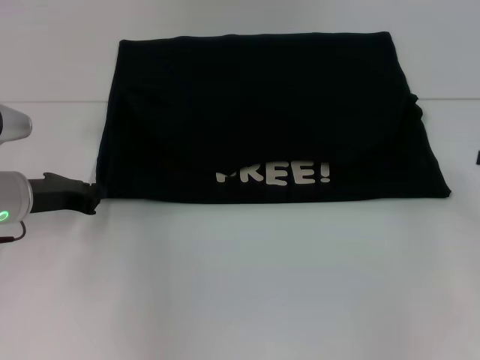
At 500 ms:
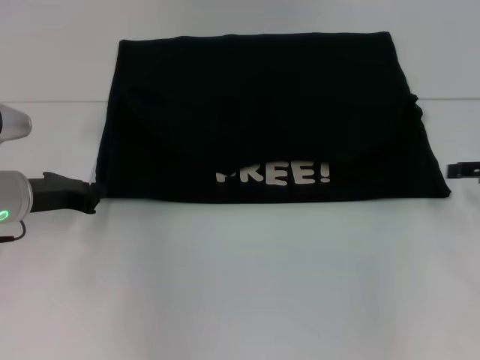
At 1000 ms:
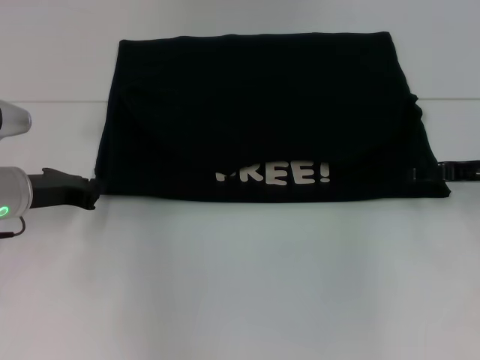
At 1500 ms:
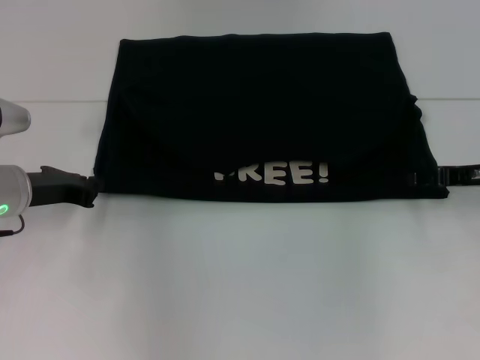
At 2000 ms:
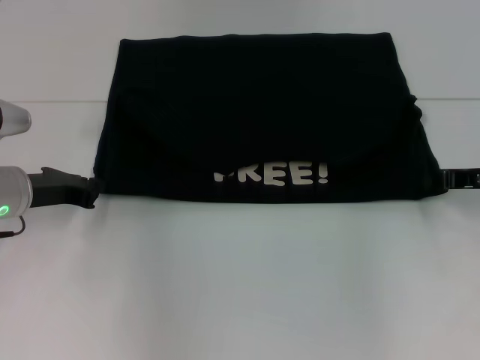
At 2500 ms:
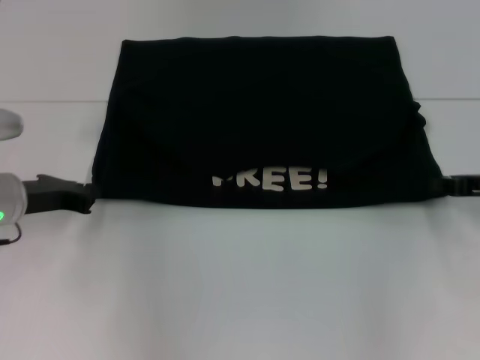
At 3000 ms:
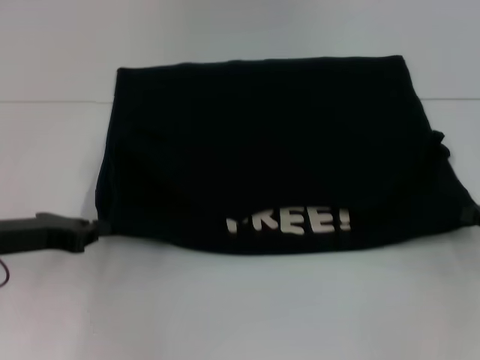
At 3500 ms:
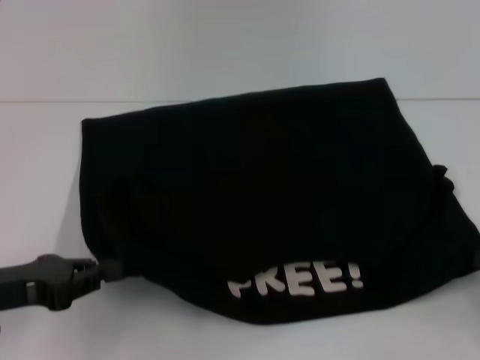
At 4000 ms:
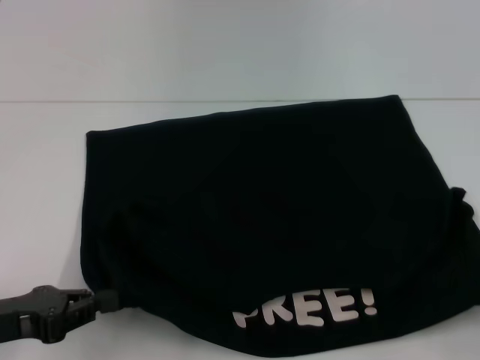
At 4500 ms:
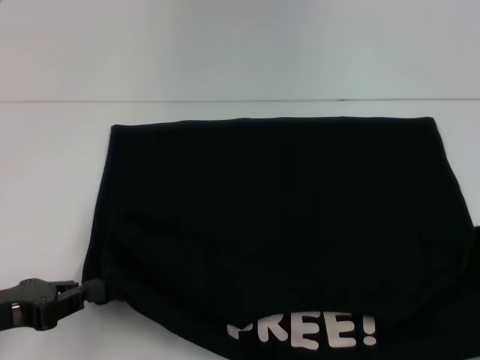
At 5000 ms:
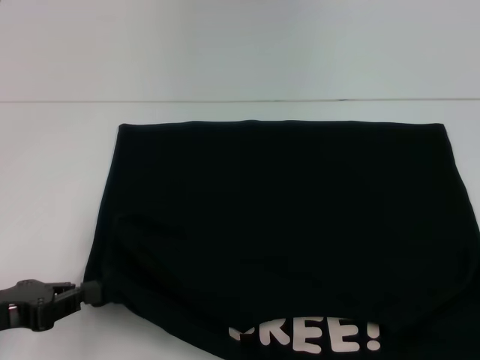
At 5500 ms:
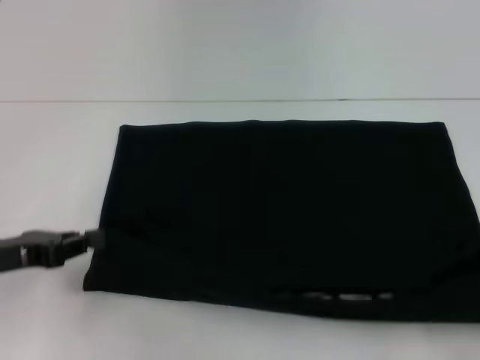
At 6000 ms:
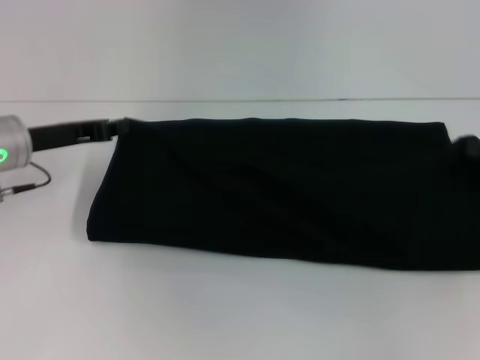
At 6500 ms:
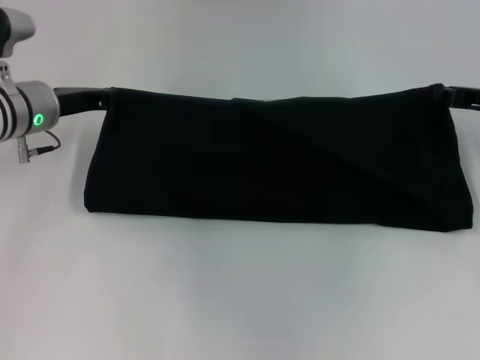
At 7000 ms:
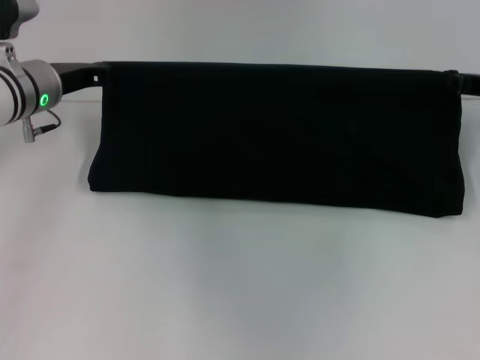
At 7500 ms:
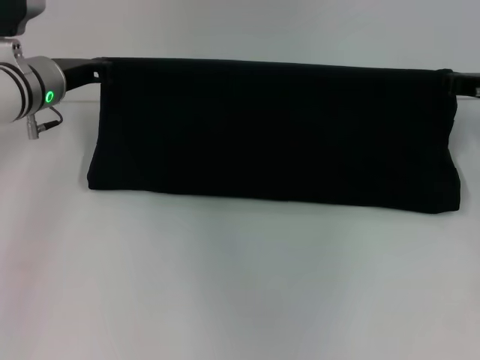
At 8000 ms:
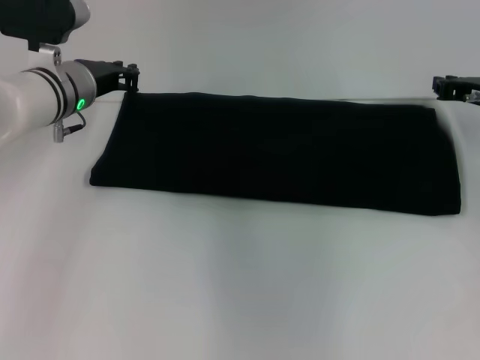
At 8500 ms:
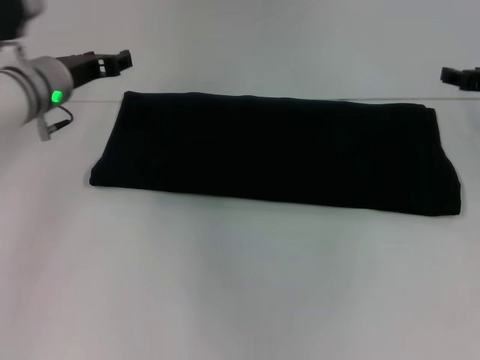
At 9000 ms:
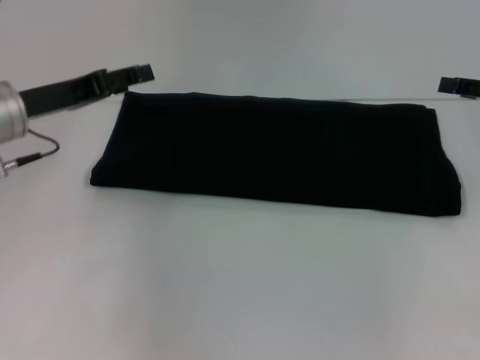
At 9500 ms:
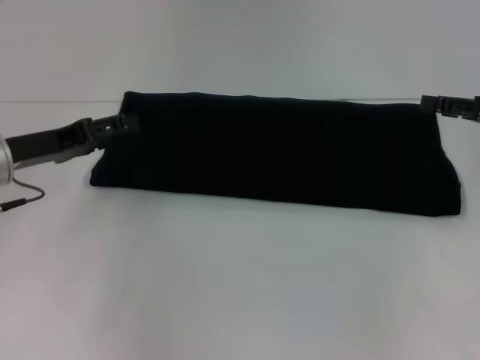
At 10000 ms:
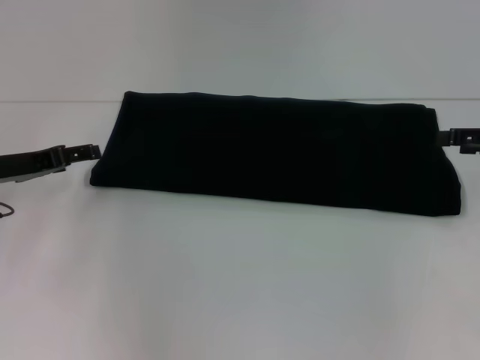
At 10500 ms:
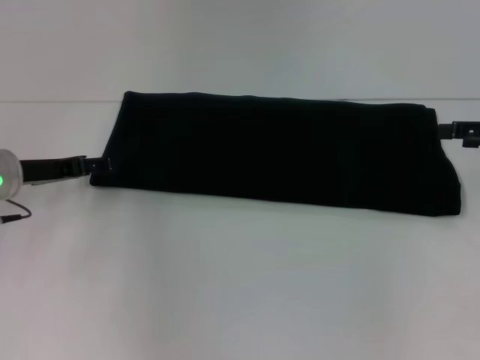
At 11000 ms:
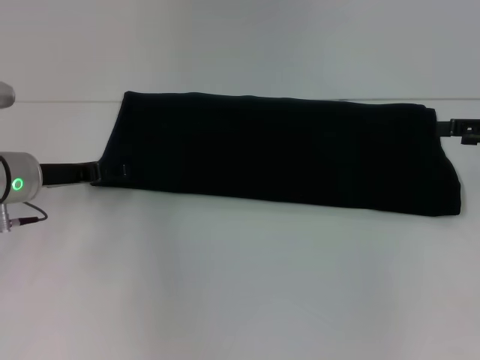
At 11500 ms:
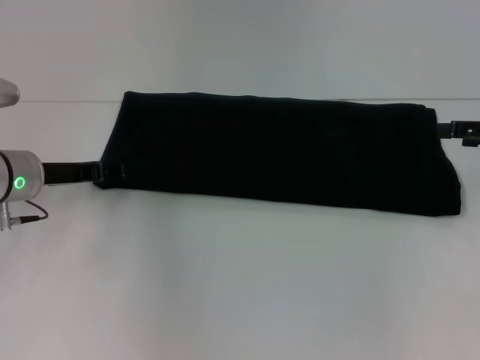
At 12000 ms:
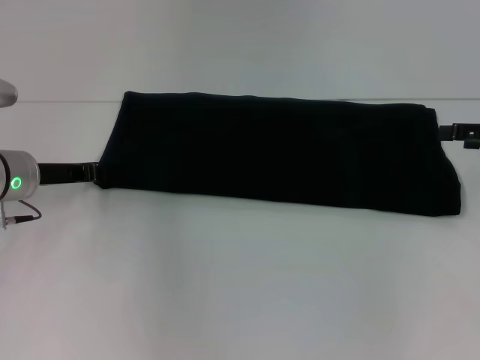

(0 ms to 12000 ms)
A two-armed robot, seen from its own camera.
Step, 0 ms - 4000 ms: Pull the clothes with your left hand.
Step, 0 ms - 4000 ms: Pull the clothes with your right hand.
Step, 4500 ms - 7500 ms: Fold the clothes with your right hand.
0 ms - 2000 ms: The right gripper heads to the left, covering about 10 cm, and closes up.
2000 ms - 4000 ms: The left gripper shifts roughly 15 cm backward; the right gripper moves backward and to the right, some 20 cm.
4000 ms - 6000 ms: Both grippers move forward, approximately 15 cm.
6000 ms - 8000 ms: The left gripper heads to the right and forward, covering approximately 10 cm; the right gripper goes about 15 cm forward and to the left.
8000 ms - 10000 ms: The right gripper travels backward and to the right by roughly 10 cm, and opens its fingers. The left gripper shifts some 15 cm to the left and backward, and opens.
10000 ms - 12000 ms: The left gripper closes up.

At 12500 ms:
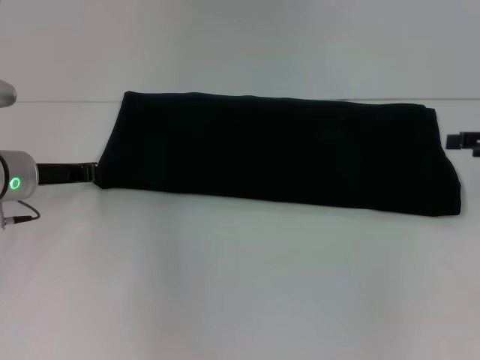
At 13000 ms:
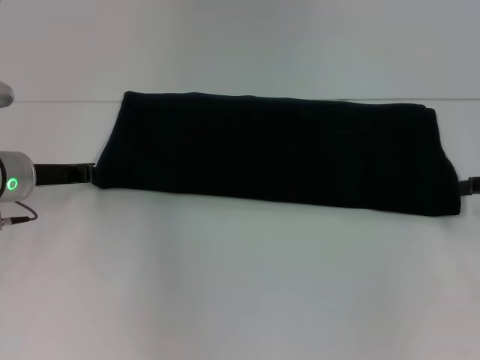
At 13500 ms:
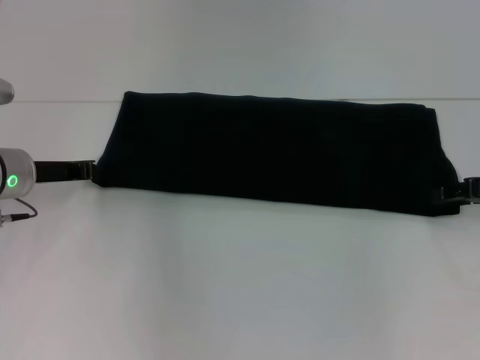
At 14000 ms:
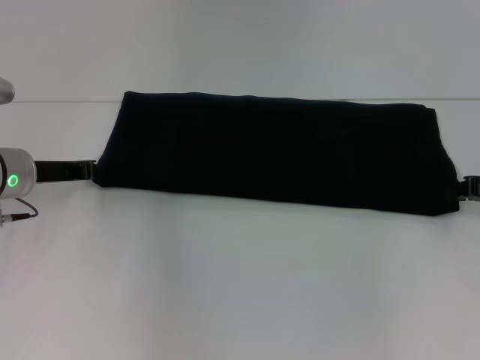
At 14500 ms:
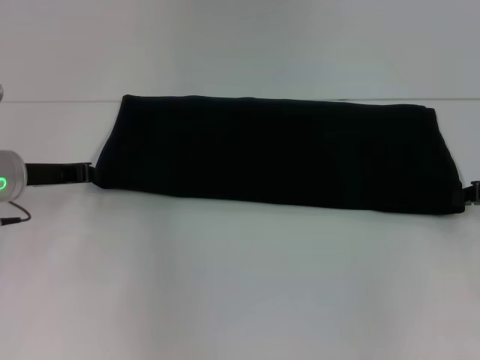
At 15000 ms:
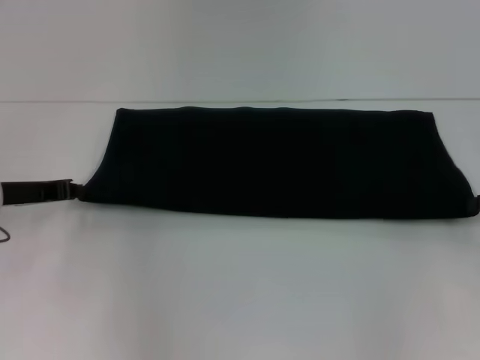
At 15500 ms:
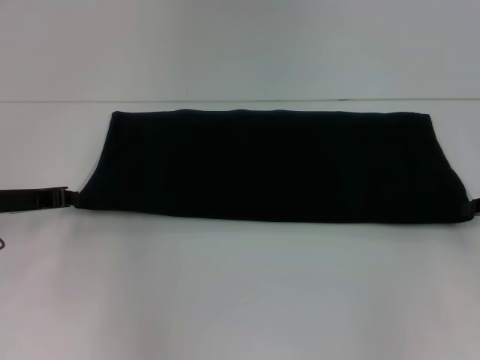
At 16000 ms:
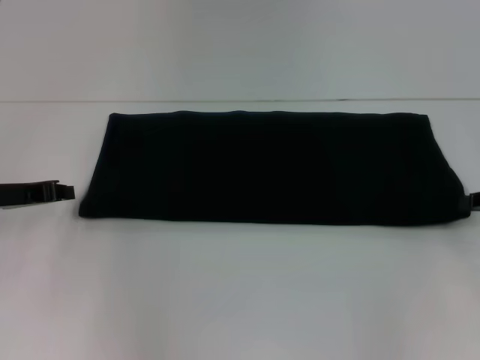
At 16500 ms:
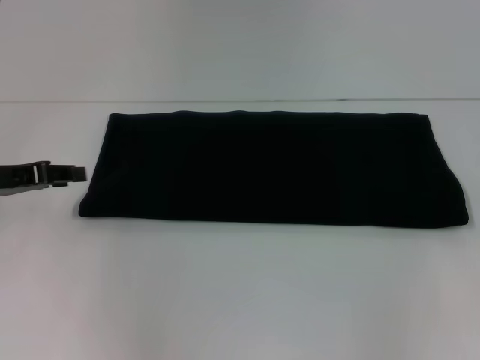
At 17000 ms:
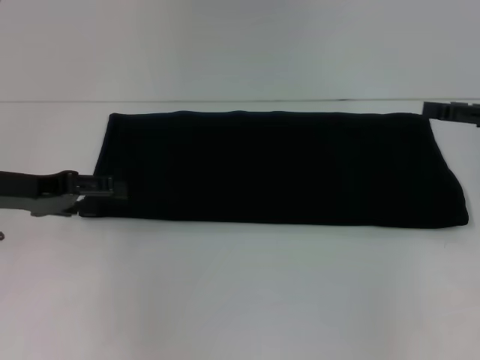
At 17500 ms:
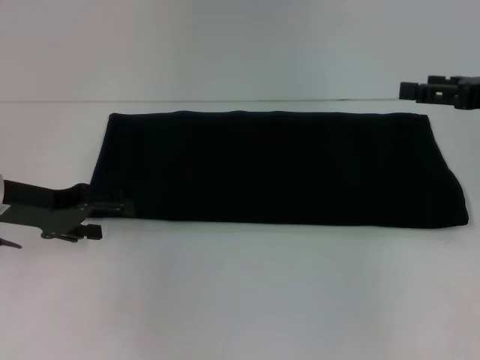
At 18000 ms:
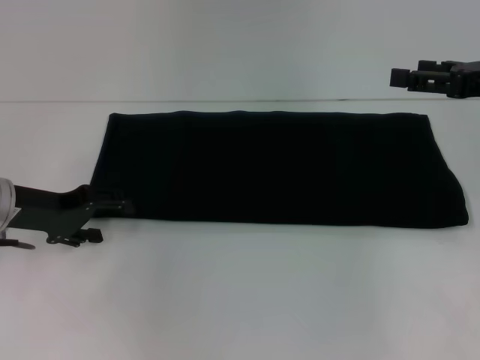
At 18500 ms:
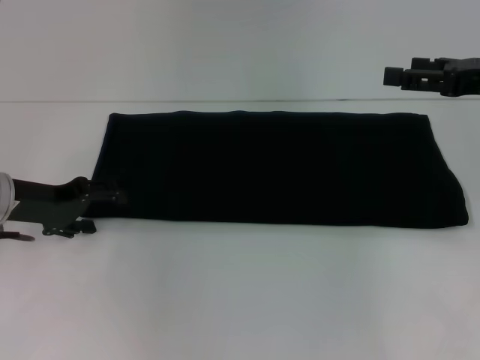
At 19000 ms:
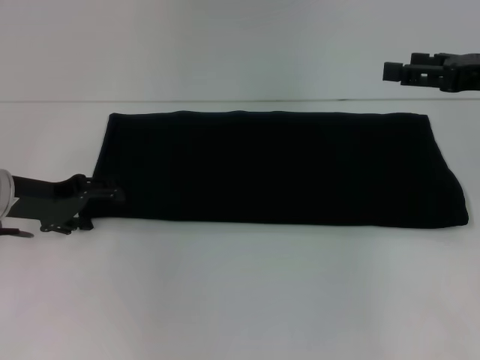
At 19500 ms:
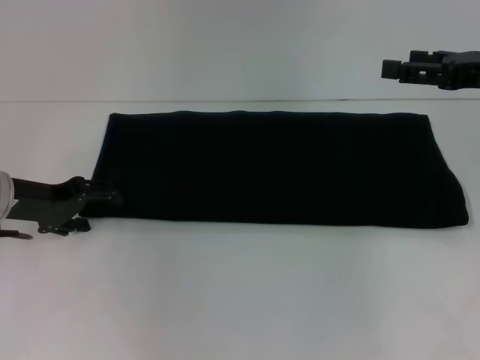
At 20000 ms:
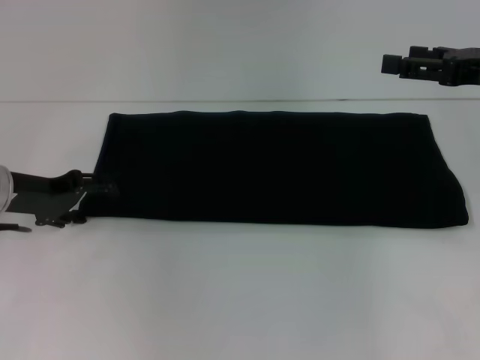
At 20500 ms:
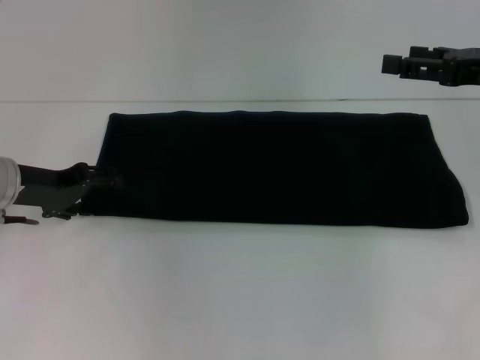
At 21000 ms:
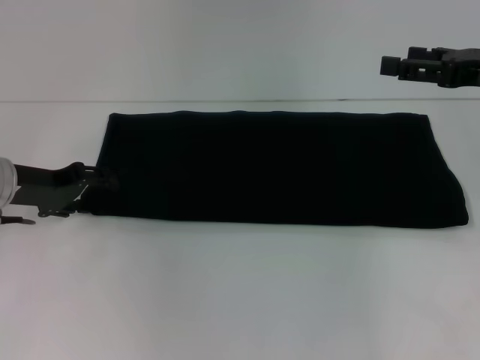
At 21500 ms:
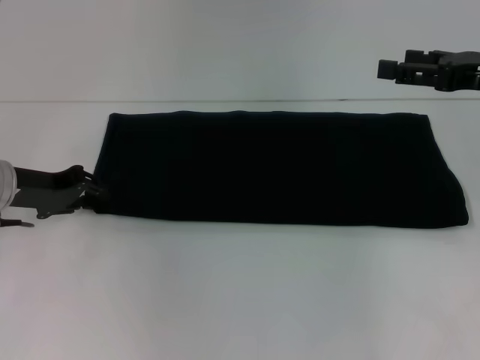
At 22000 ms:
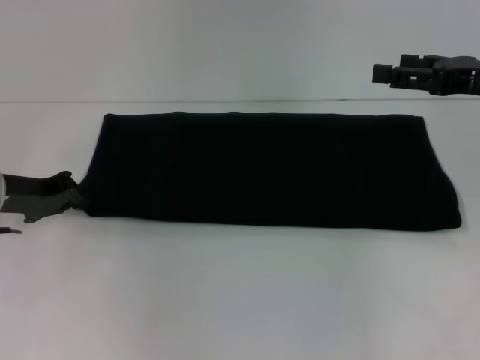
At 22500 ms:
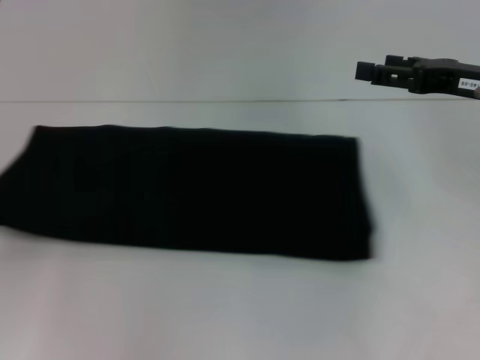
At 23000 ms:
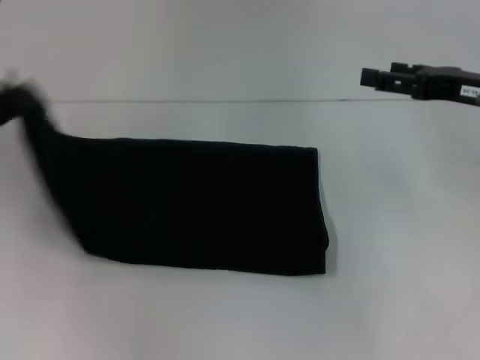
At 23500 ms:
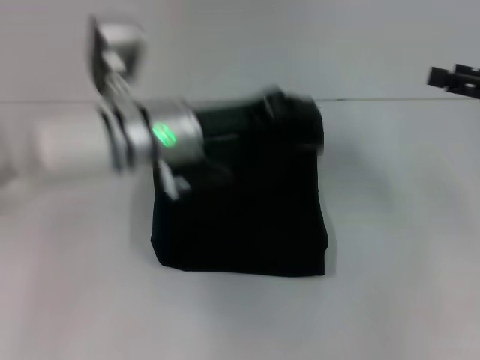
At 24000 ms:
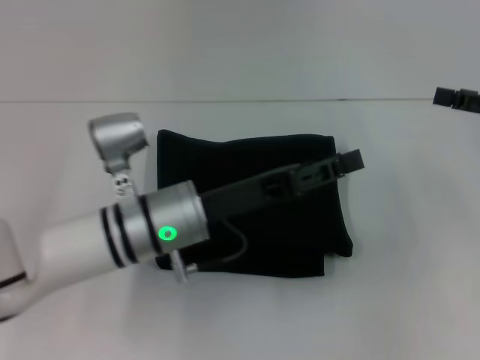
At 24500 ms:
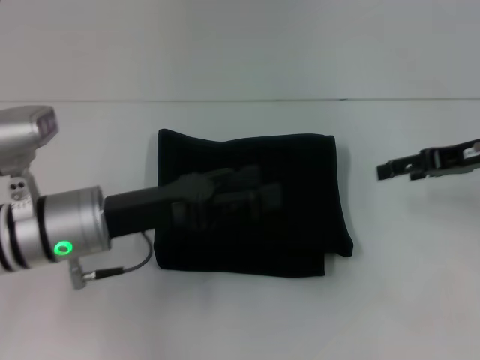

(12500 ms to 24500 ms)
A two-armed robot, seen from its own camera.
Step, 12500 ms - 23500 ms: Fold the clothes with your left hand.
12500 ms - 14500 ms: The right gripper closes its fingers.
14500 ms - 16500 ms: The right gripper moves upward, approximately 5 cm, and opens. Meanwhile the left gripper changes place by about 5 cm.
16500 ms - 18500 ms: The right gripper is displaced to the left by roughly 10 cm, and opens its fingers, while the left gripper opens.
18500 ms - 20500 ms: The grippers stay close to where they were, moving slightly.
20500 ms - 22500 ms: The left gripper travels to the left and backward by some 15 cm, and closes.
22500 ms - 24500 ms: The left gripper moves to the right, some 20 cm, and opens.

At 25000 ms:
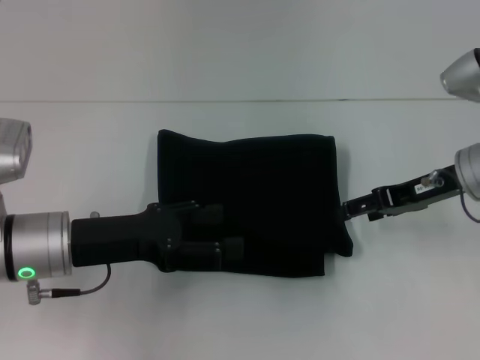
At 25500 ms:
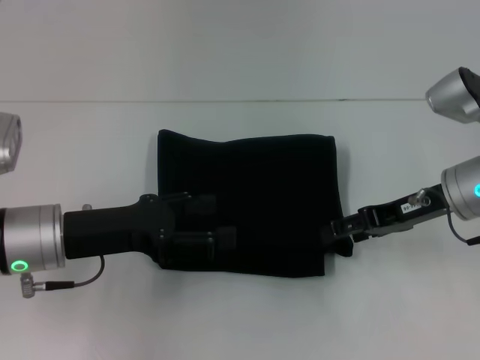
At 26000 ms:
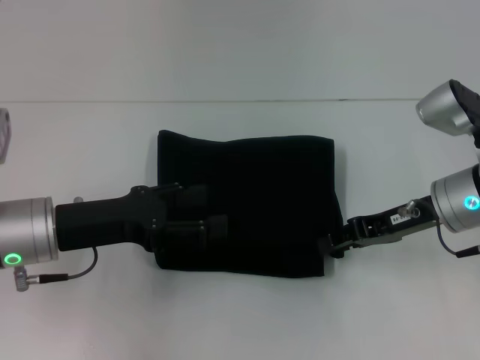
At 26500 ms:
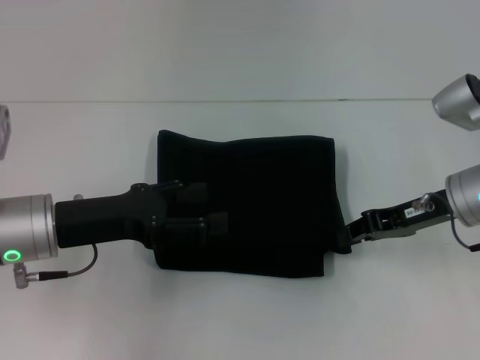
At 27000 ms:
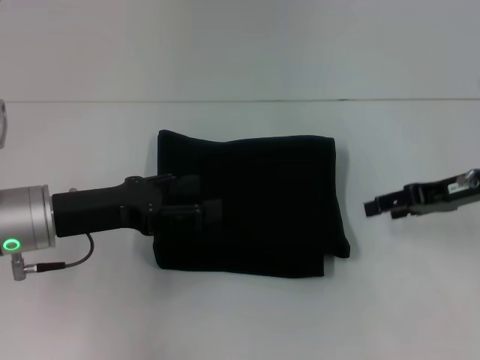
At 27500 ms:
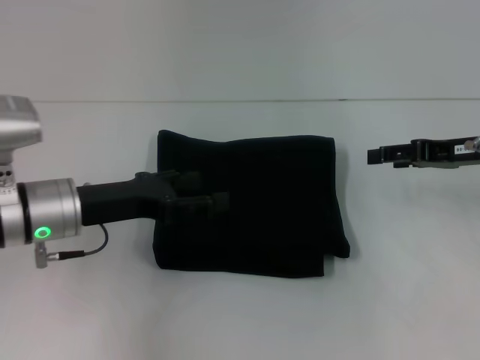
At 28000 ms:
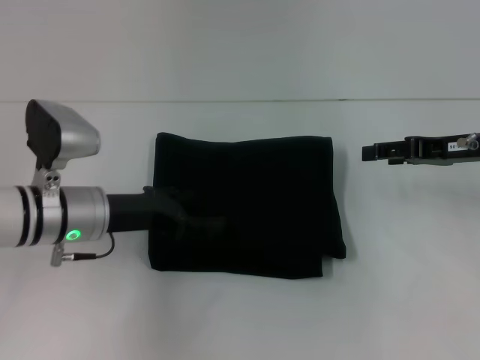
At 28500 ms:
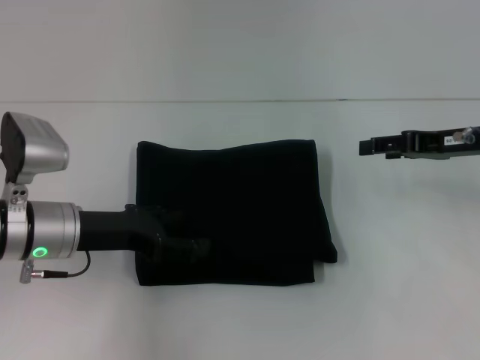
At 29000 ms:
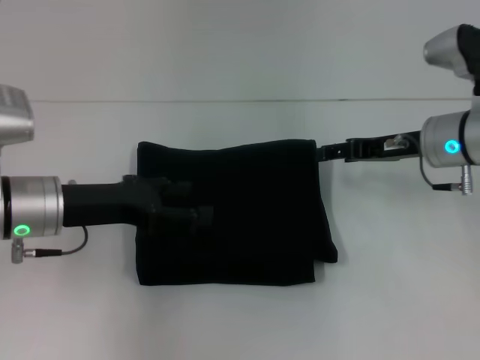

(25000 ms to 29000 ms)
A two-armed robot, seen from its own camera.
25000 ms - 27000 ms: The right gripper closes.
27000 ms - 29000 ms: The right gripper is displaced to the left by approximately 5 cm.
